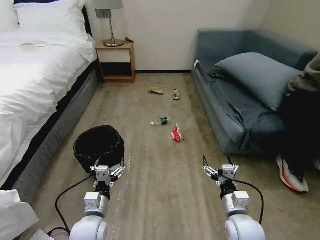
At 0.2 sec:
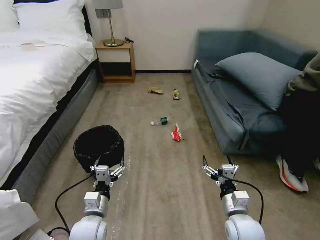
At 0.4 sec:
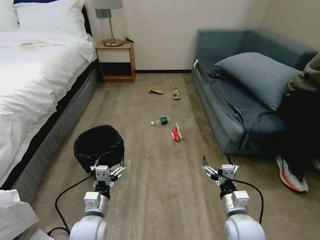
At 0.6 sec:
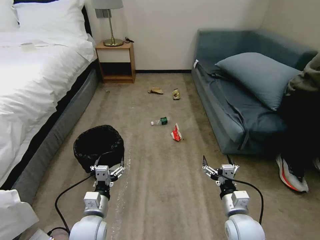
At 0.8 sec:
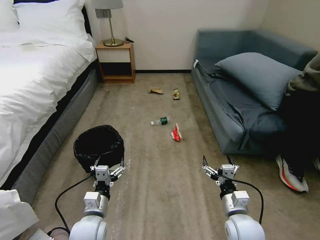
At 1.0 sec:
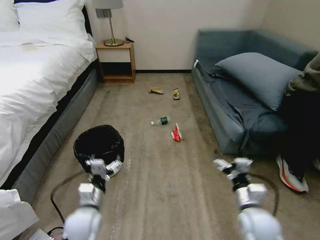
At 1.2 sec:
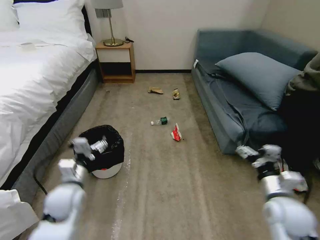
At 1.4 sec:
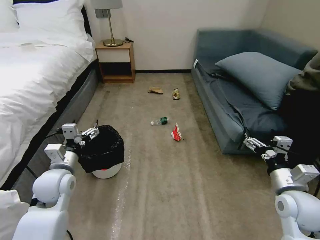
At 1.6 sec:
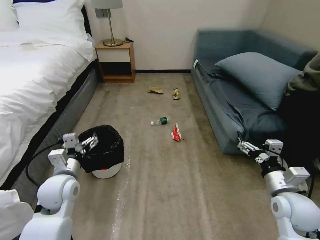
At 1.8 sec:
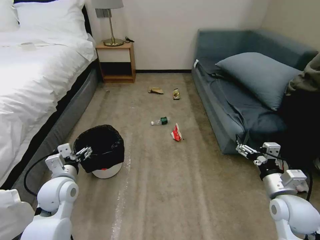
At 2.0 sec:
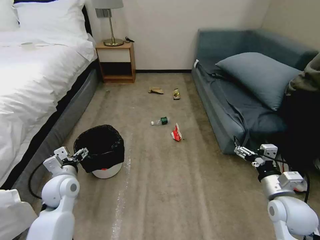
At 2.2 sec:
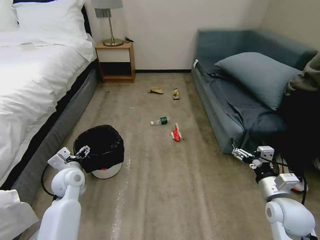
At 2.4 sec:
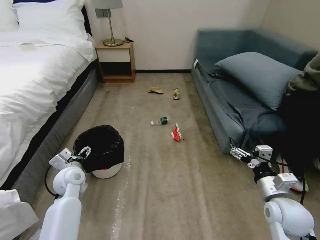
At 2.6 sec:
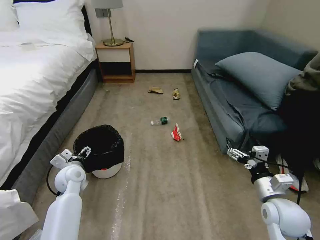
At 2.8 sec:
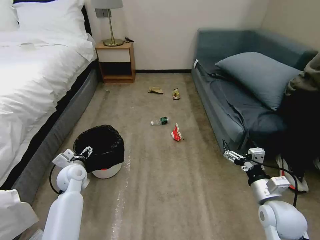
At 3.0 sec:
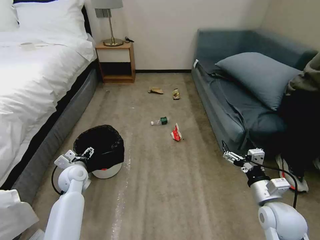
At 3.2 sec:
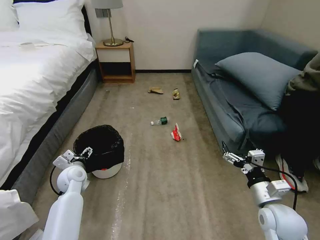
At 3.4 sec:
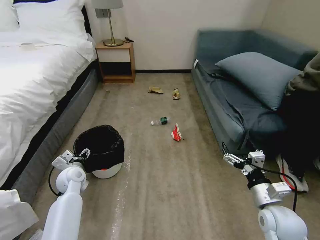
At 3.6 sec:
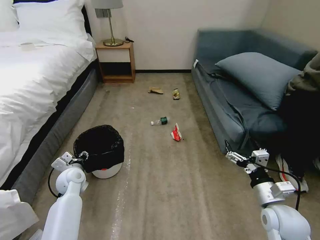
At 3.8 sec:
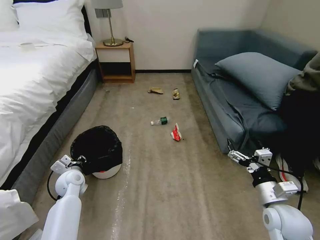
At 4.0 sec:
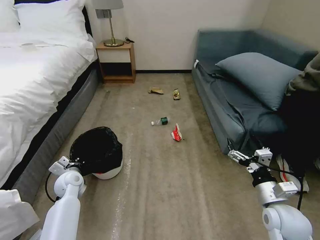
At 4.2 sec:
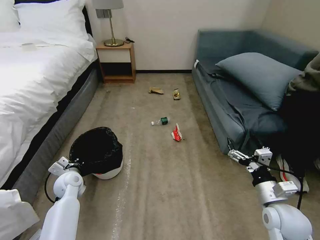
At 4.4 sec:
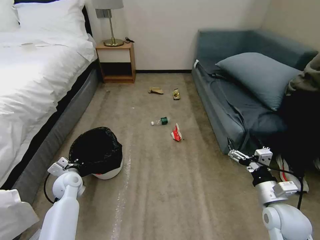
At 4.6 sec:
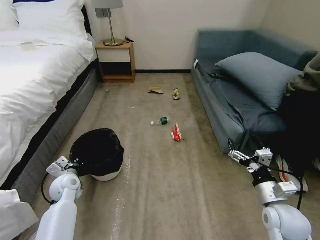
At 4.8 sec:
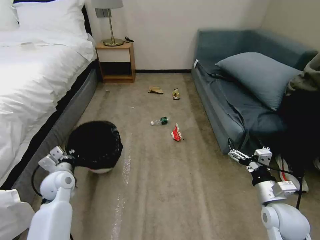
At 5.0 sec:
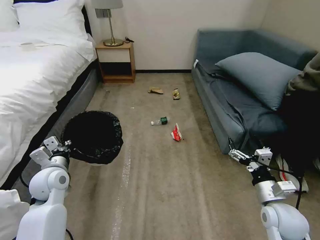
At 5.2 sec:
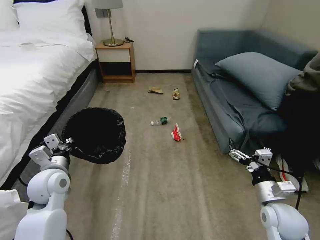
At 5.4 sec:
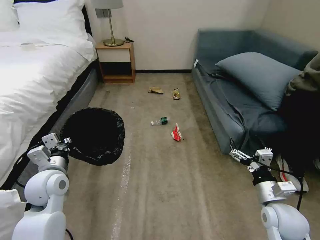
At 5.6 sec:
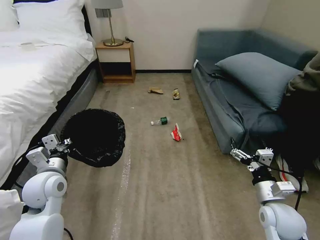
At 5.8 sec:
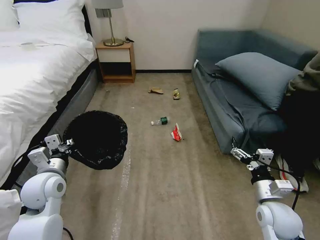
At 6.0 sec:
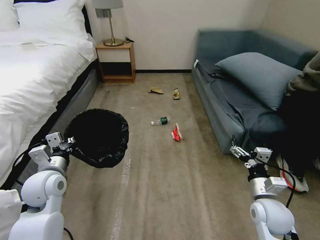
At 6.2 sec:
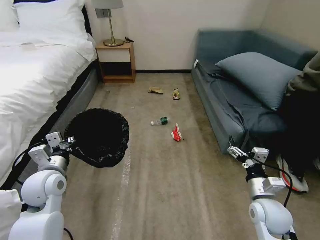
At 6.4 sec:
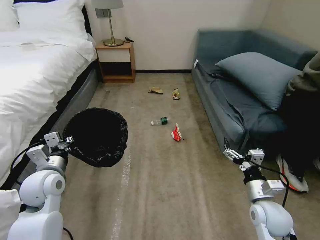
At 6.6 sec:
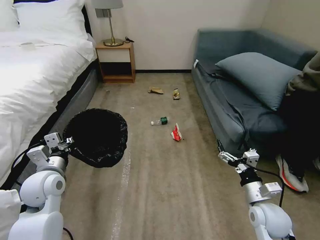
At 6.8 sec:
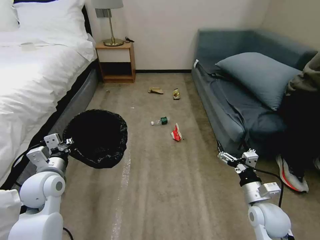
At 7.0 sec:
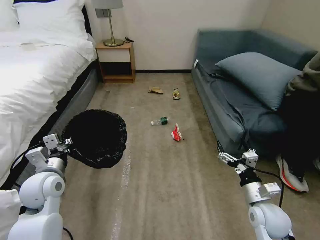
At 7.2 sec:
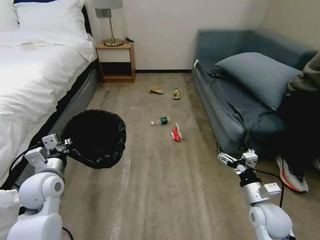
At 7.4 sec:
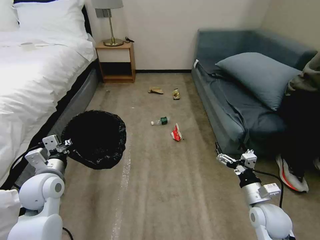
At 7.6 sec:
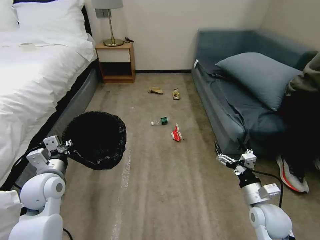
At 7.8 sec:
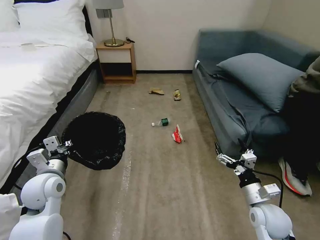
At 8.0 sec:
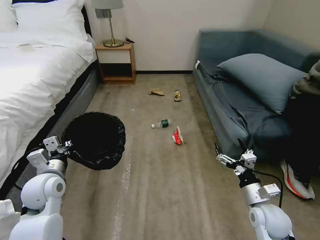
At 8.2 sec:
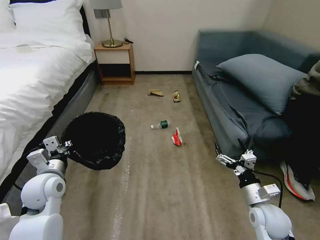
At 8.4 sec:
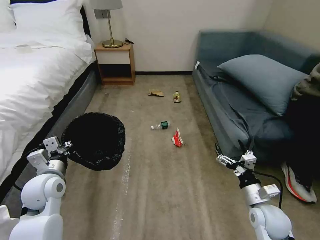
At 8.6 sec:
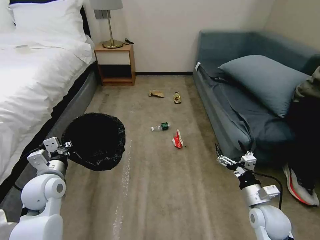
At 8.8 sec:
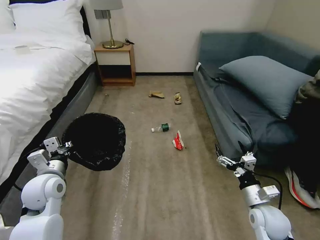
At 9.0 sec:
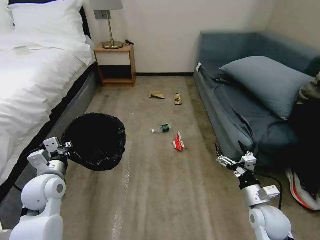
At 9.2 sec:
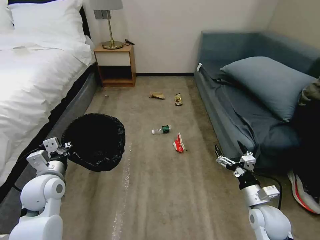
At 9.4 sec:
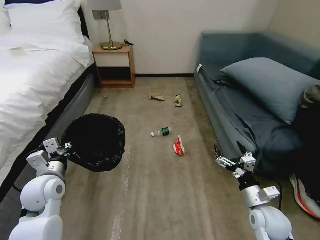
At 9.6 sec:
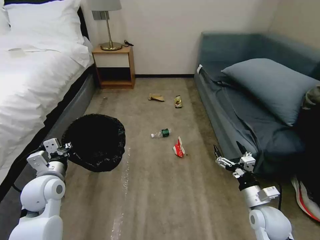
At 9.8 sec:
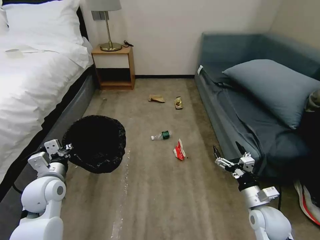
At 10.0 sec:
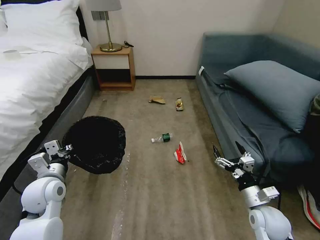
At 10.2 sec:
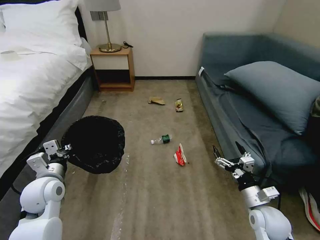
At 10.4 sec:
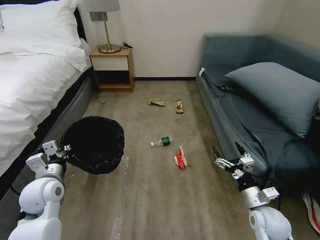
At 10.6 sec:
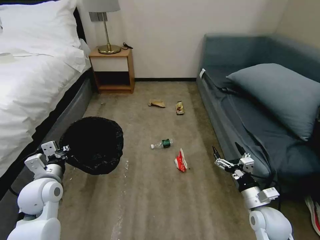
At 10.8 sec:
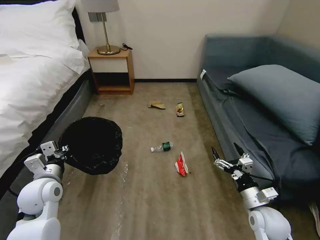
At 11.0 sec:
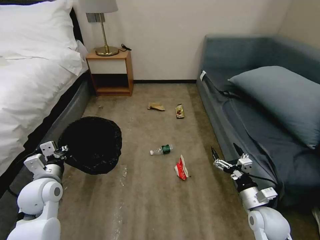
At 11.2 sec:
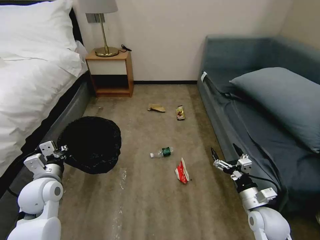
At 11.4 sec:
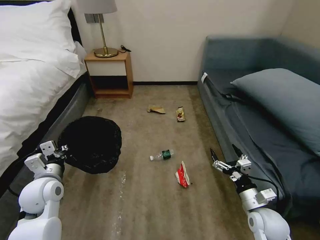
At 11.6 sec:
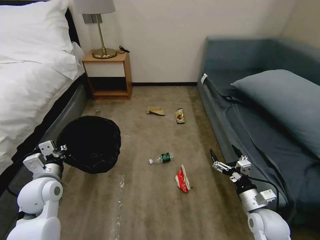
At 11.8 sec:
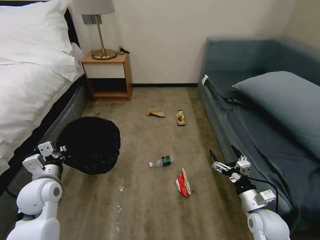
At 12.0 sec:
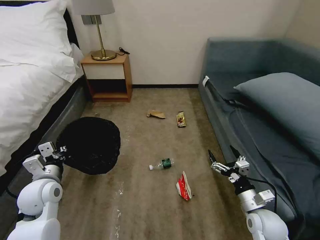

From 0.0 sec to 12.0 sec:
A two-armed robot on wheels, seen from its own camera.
Task of the whole recording: Pick up the trash bin, then pick up the garbage on the floor and place it into the trash bin.
From 1.6 sec to 3.0 sec: The left gripper travels downward and forward by some 10 cm.
From 3.0 sec to 4.4 sec: The left gripper closes.
From 4.4 sec to 6.0 sec: The left gripper moves upward and backward, about 15 cm.
From 6.0 sec to 7.6 sec: The grippers move only a little.
From 7.6 sec to 9.0 sec: The two grippers keep their place.

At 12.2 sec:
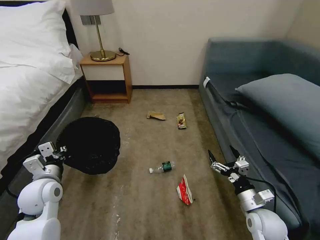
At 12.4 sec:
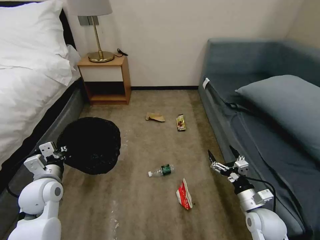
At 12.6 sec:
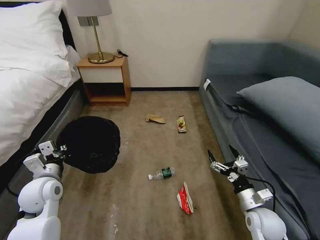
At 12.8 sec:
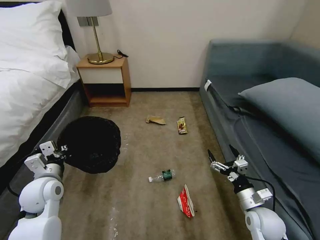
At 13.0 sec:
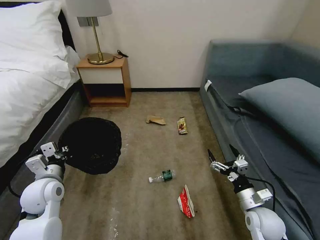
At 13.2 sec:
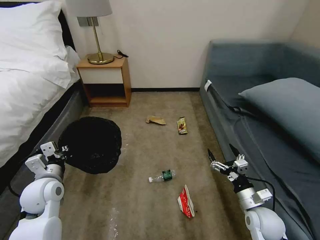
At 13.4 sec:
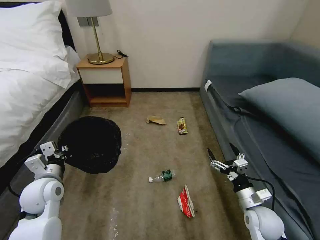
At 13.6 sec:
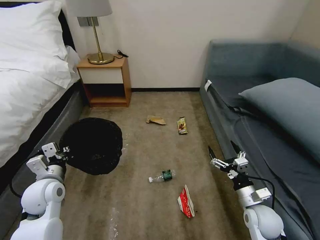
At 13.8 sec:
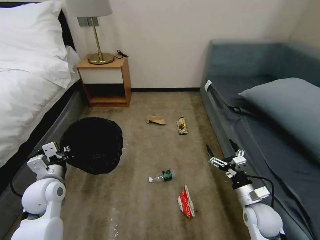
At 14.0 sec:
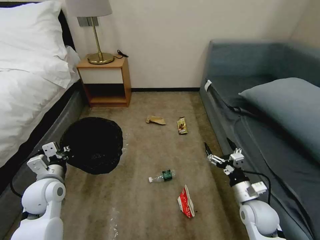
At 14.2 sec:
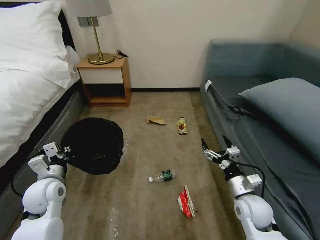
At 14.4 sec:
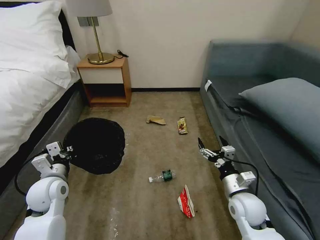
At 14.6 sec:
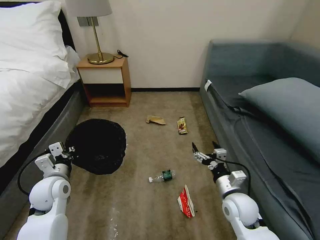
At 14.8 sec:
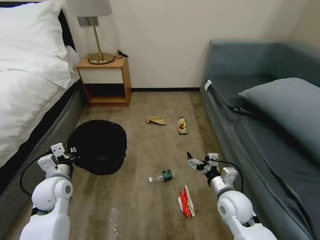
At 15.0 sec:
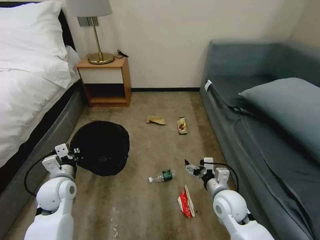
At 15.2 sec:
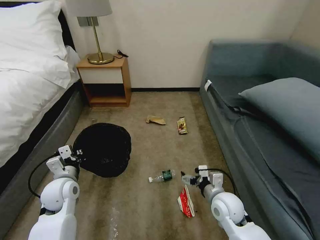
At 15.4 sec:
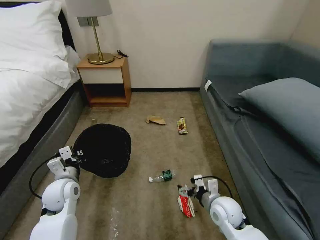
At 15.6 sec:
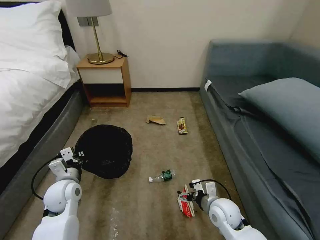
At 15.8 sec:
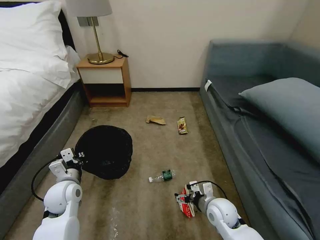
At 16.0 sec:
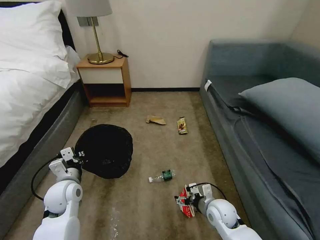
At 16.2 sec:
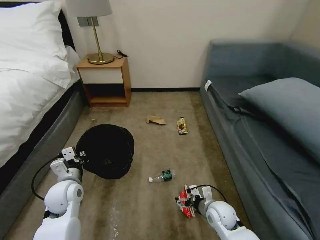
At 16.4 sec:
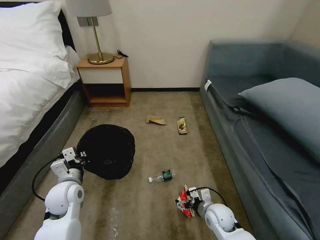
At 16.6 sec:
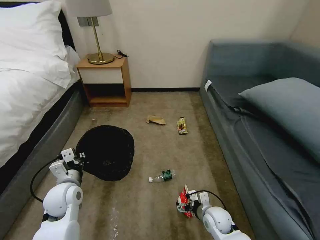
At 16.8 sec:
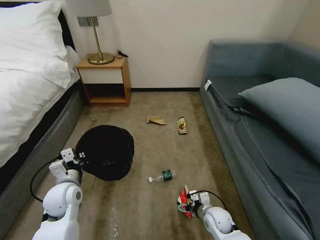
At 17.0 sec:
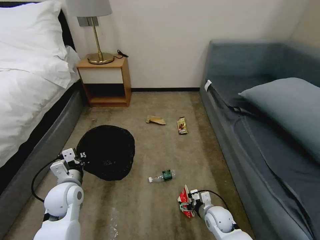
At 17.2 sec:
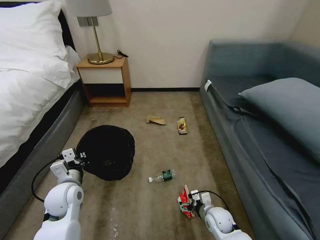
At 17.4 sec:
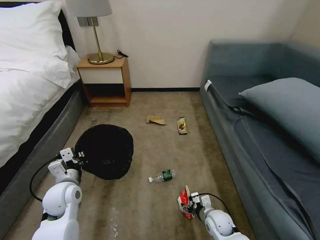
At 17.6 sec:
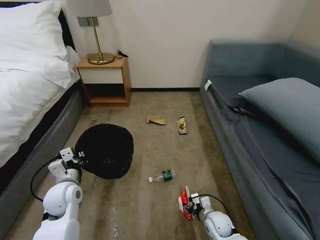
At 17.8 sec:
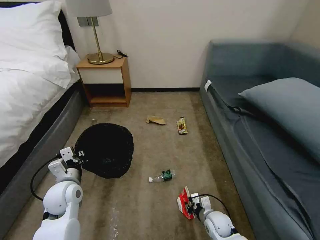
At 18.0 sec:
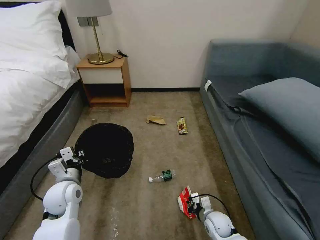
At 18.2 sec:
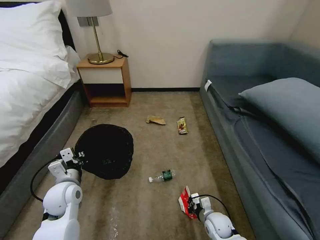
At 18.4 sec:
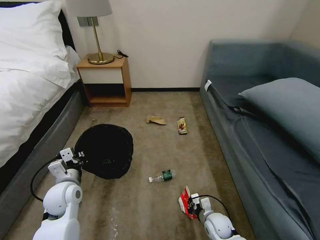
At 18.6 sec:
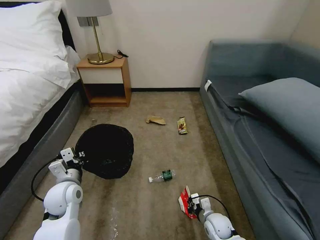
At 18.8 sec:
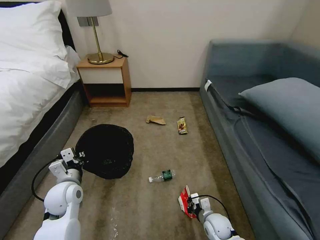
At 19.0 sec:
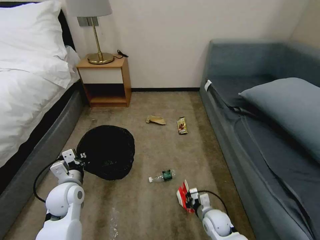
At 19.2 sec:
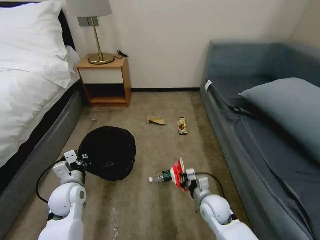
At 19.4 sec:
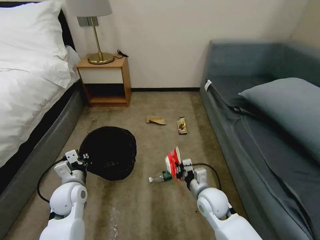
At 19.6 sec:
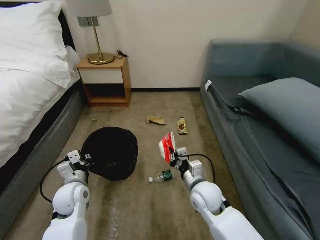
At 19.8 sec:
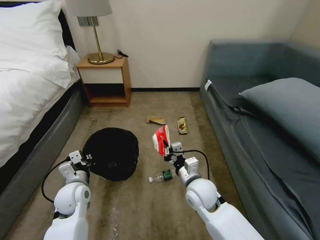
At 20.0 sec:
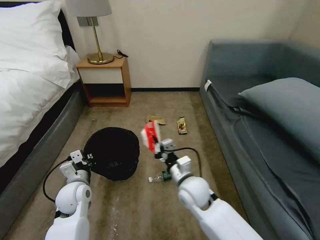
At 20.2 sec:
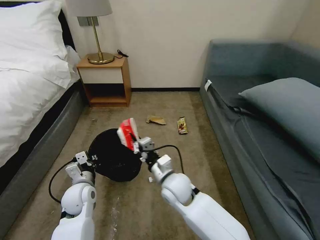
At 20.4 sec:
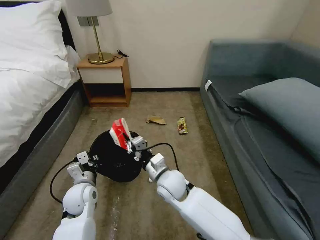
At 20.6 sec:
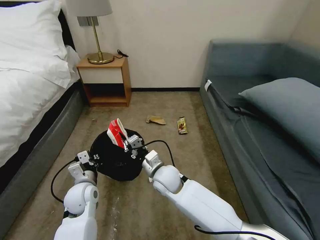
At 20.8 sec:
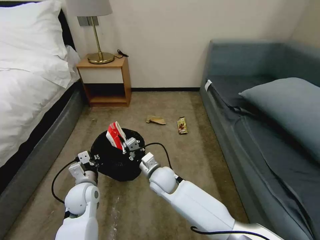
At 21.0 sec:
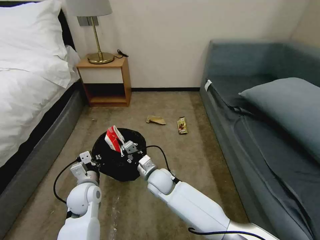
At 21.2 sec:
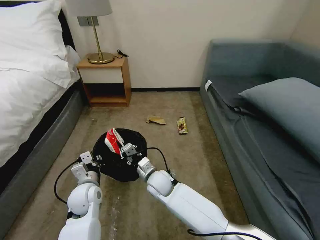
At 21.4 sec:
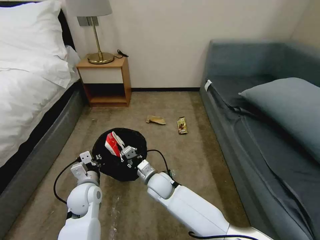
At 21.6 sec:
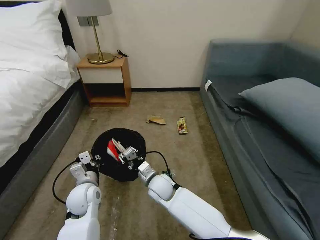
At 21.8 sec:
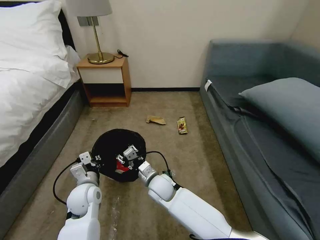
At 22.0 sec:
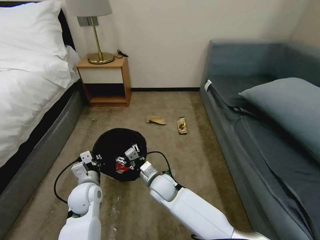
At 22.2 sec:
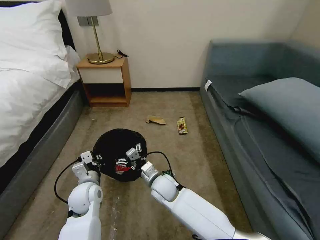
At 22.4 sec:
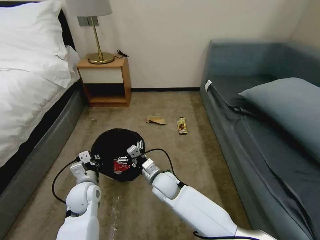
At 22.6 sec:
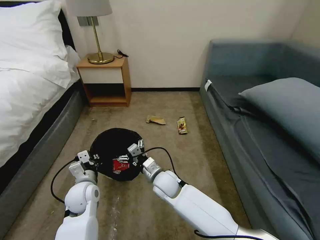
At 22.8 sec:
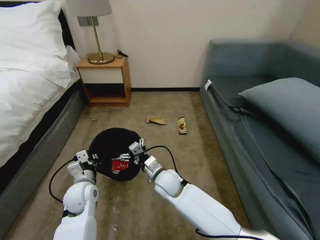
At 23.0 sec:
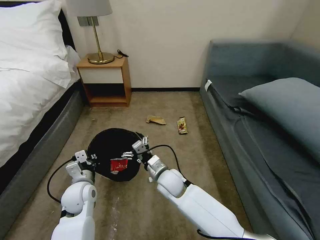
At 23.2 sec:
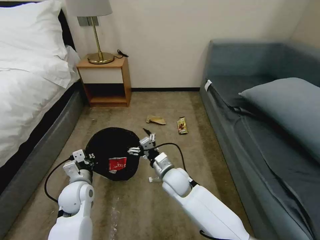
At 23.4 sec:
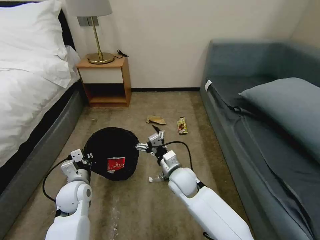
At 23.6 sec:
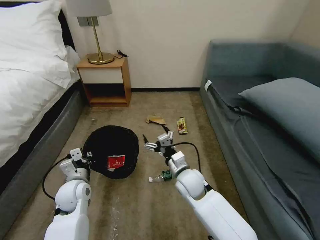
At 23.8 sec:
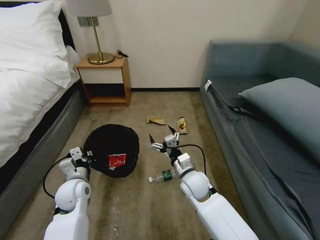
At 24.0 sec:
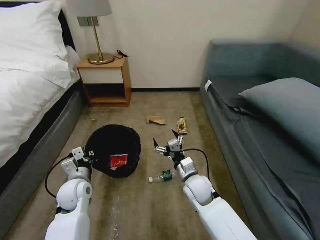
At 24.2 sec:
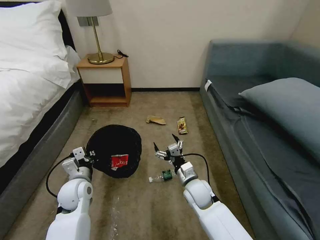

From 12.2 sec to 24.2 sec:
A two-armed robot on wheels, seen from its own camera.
Task of the whole recording: Pick up the trash bin, then pick up the garbage on the floor and place it into the trash bin.
From 12.2 sec to 13.8 sec: There are only small adjustments of the grippers.
From 13.8 sec to 15.2 sec: The right gripper heads to the left, covering approximately 10 cm.
From 15.2 sec to 16.6 sec: The right gripper is displaced downward by roughly 10 cm.
From 16.6 sec to 18.2 sec: The right gripper closes up.
From 18.2 sec to 19.8 sec: The right gripper is displaced upward and to the left by approximately 20 cm.
From 19.8 sec to 21.2 sec: The right gripper travels to the left and forward by about 15 cm.
From 21.2 sec to 22.6 sec: The right gripper opens.
From 22.6 sec to 24.2 sec: The right gripper heads to the right, covering some 10 cm.
